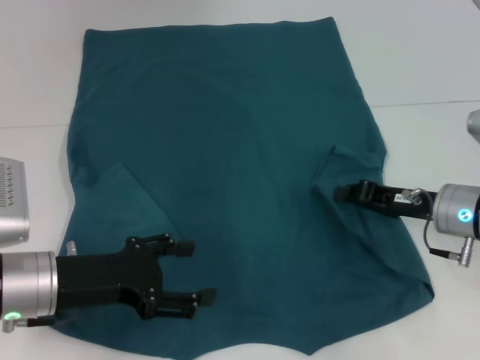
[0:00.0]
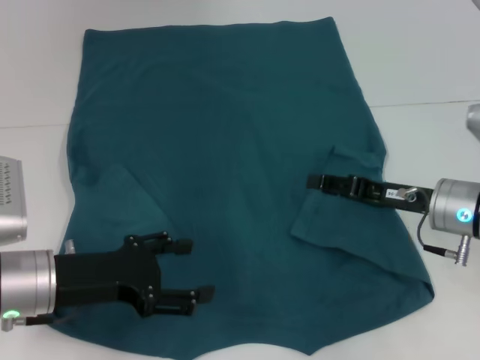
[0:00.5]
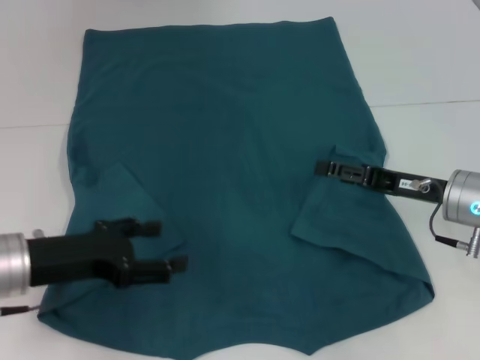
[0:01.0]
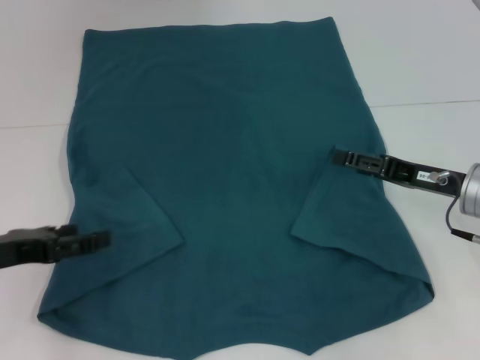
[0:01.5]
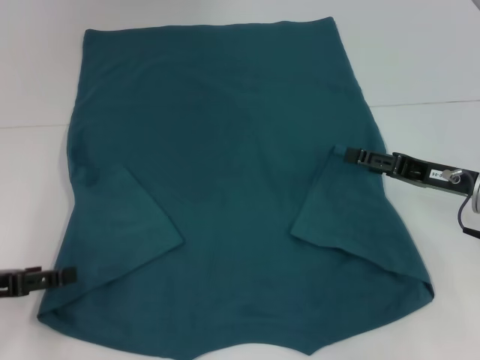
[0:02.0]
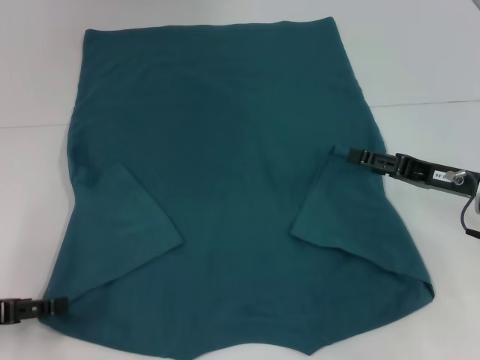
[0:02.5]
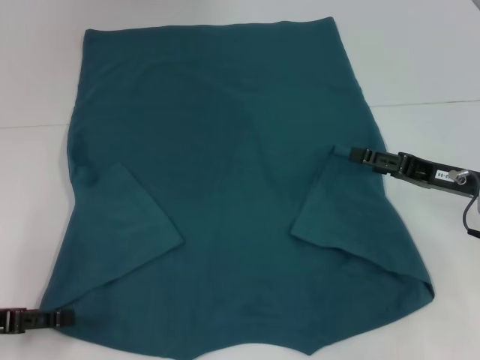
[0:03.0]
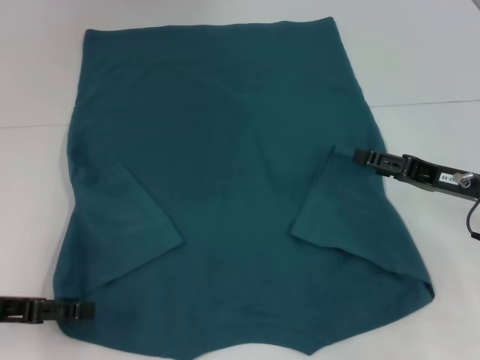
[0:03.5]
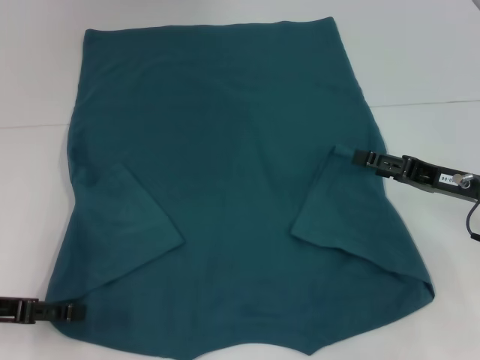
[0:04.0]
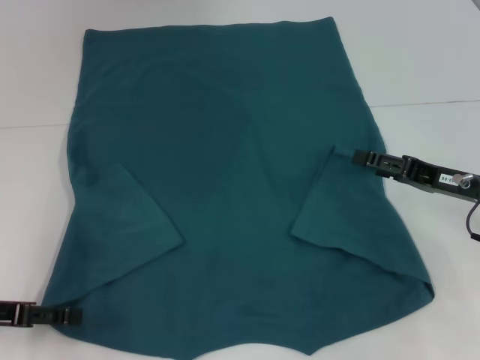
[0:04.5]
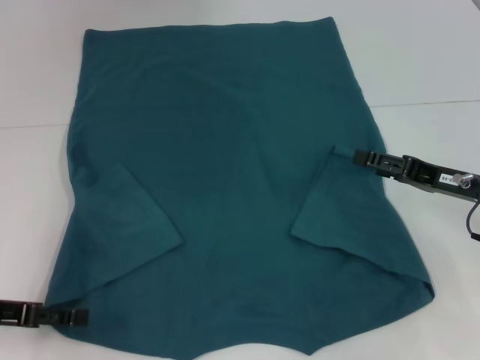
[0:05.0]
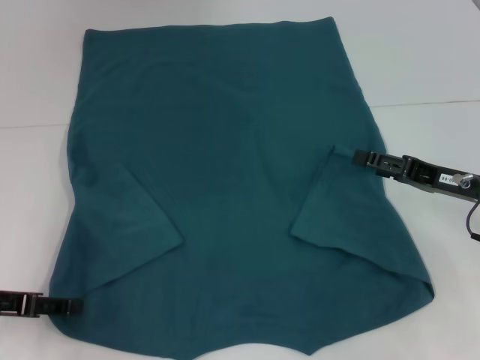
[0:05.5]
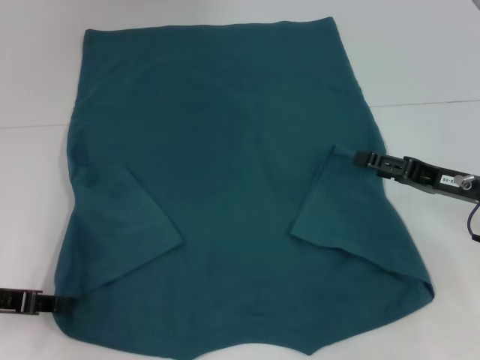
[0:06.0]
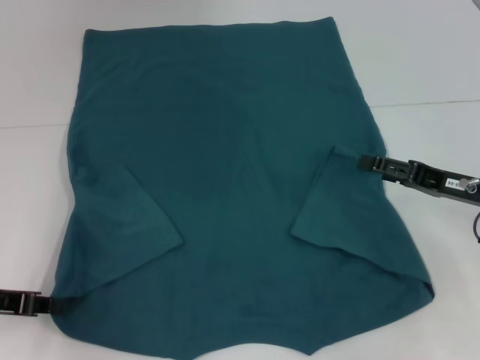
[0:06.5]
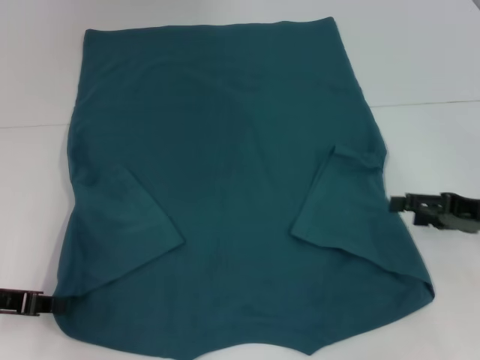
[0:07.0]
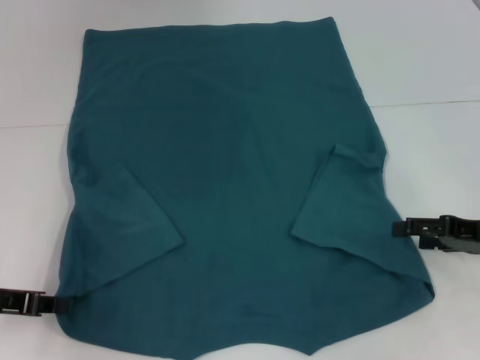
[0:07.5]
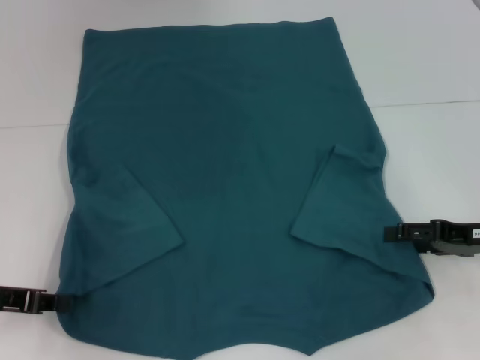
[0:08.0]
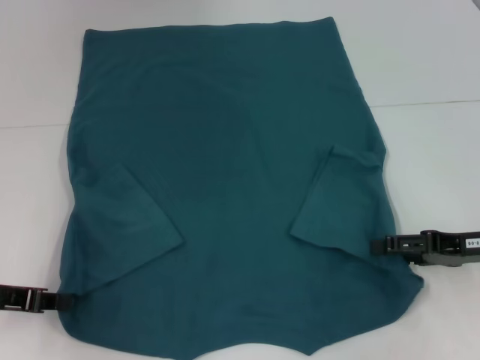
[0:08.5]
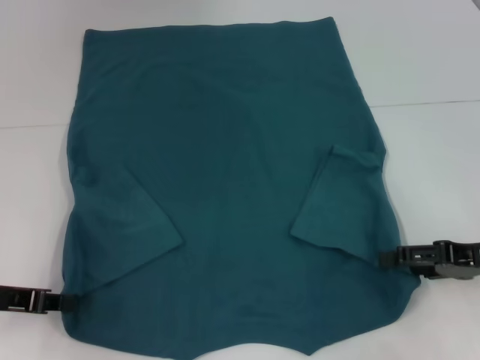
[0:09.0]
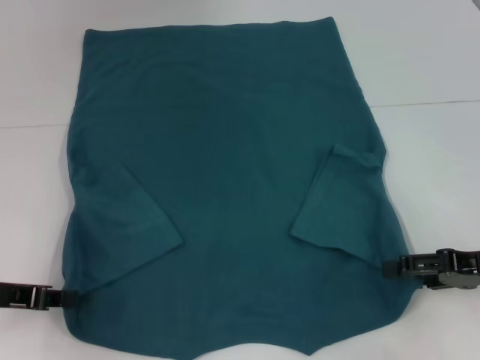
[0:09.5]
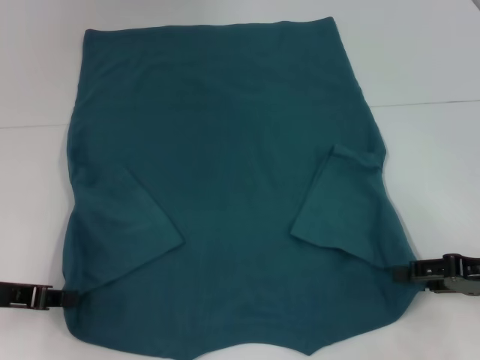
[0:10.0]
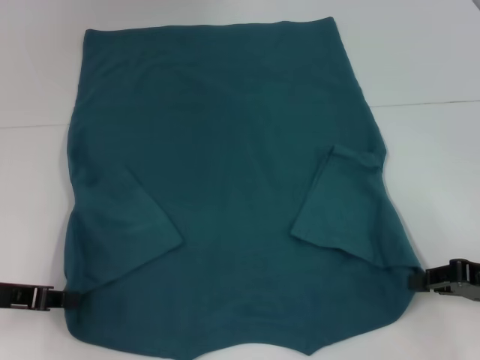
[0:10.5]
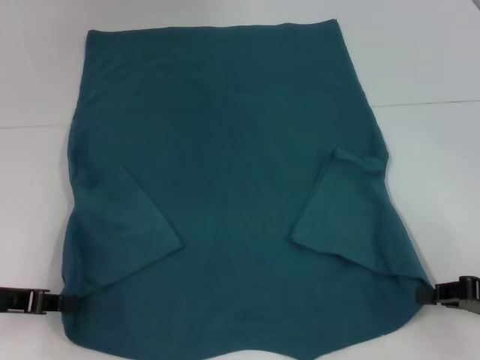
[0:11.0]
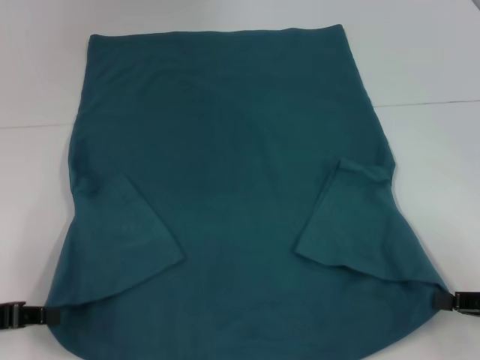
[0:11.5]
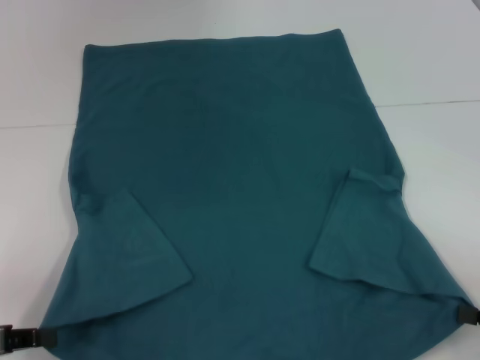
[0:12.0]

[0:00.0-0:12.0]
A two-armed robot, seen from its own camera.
Step, 0:00.5 to 0:06.0: Grab the bottom left corner with your left hand.
Step, 0:06.5 to 0:10.5: Grab the bottom right corner with your right hand.
0:00.0 to 0:02.0: The right gripper opens. The left gripper is displaced to the left by about 10 cm.
0:02.0 to 0:04.0: There are only small adjustments of the grippers.
0:04.0 to 0:06.0: The left gripper closes up.
0:06.0 to 0:08.0: The left gripper closes its fingers.
0:08.0 to 0:10.0: There are only small adjustments of the grippers.
0:10.0 to 0:12.0: The grippers both shift backward by approximately 10 cm. The right gripper closes.

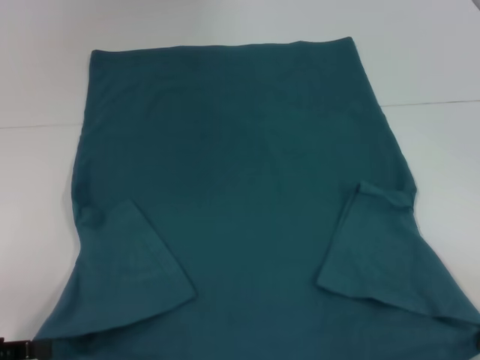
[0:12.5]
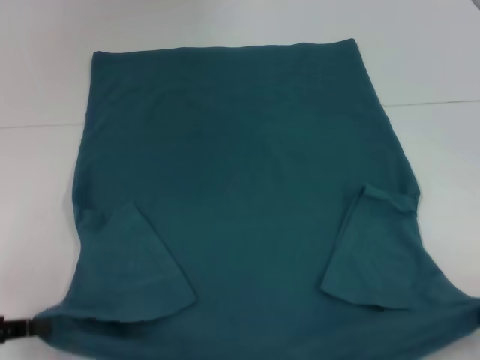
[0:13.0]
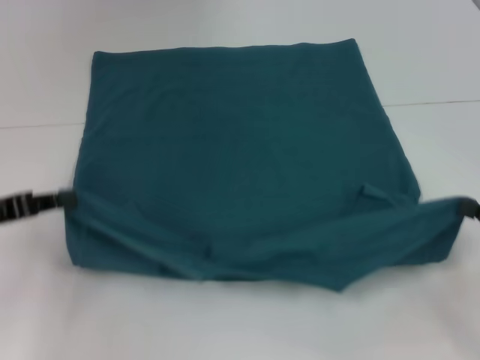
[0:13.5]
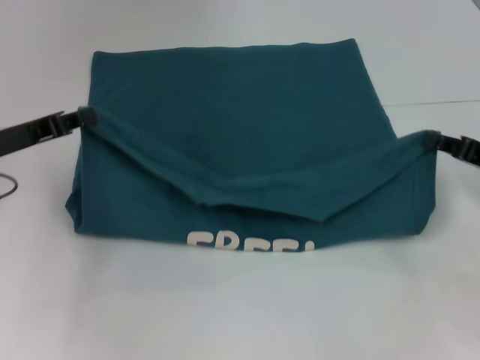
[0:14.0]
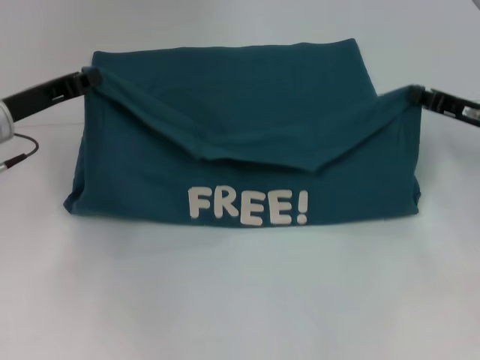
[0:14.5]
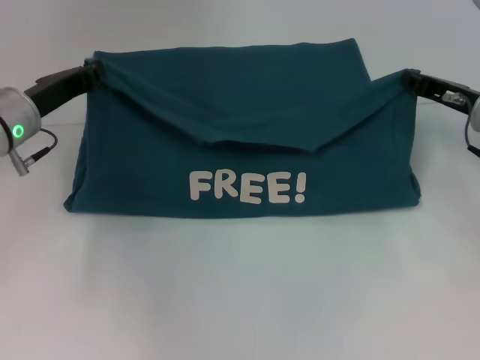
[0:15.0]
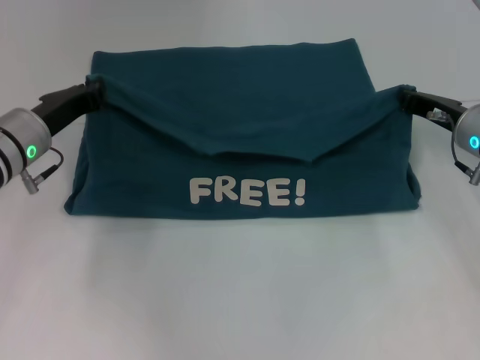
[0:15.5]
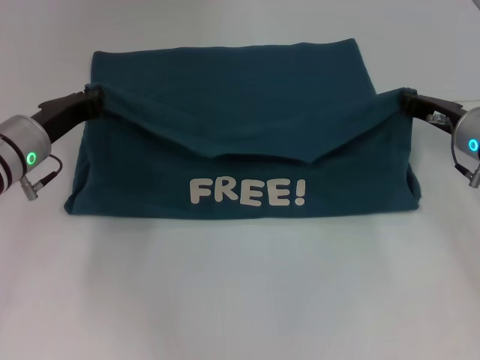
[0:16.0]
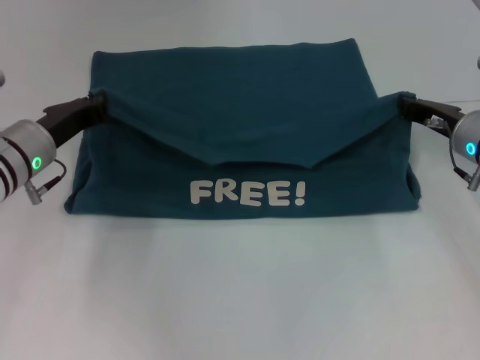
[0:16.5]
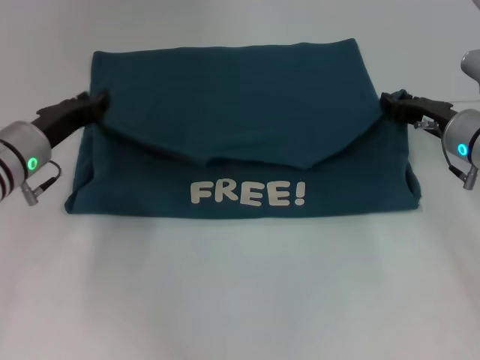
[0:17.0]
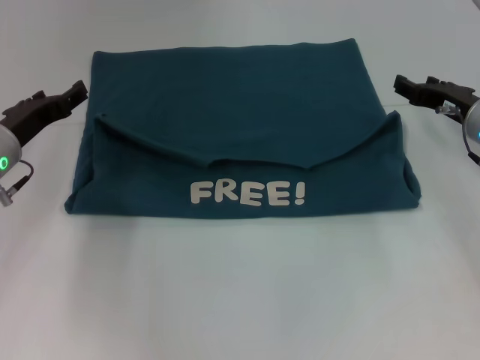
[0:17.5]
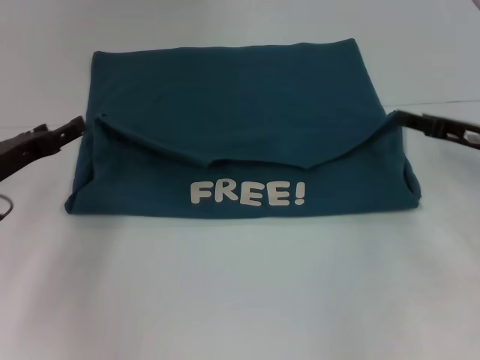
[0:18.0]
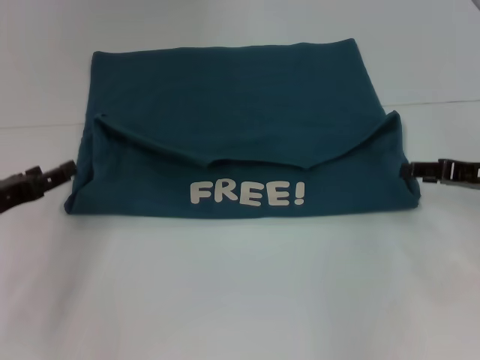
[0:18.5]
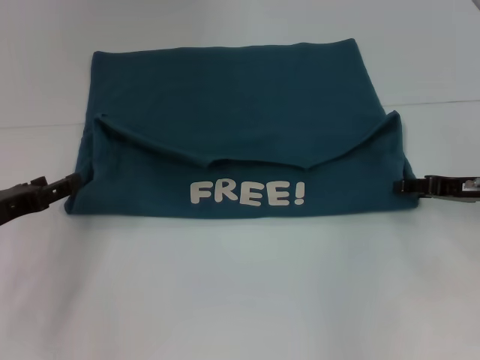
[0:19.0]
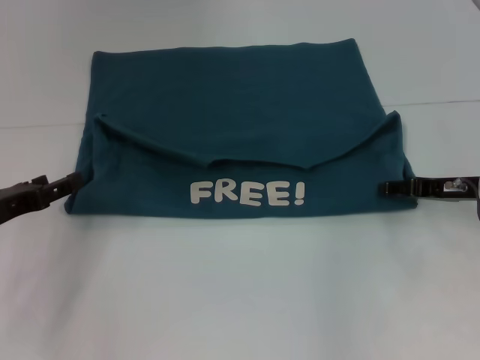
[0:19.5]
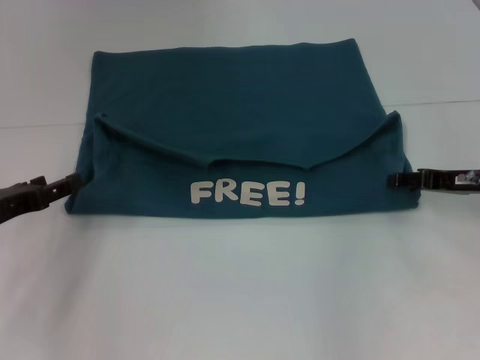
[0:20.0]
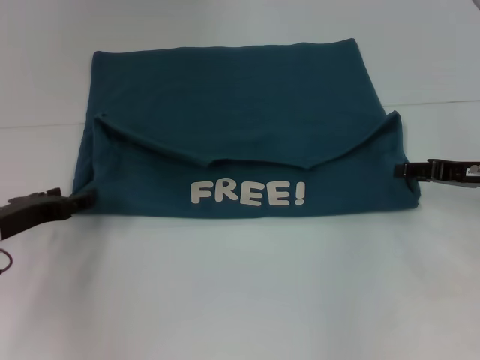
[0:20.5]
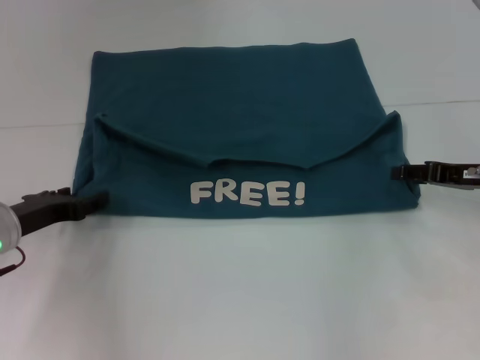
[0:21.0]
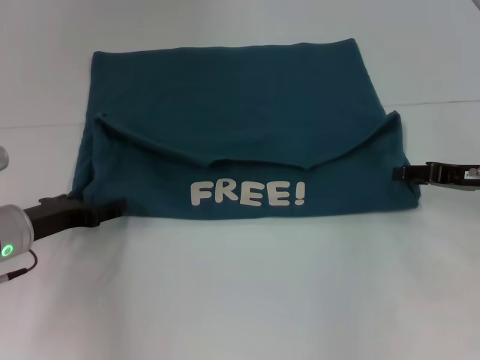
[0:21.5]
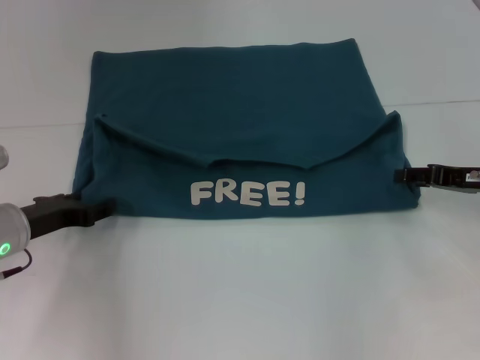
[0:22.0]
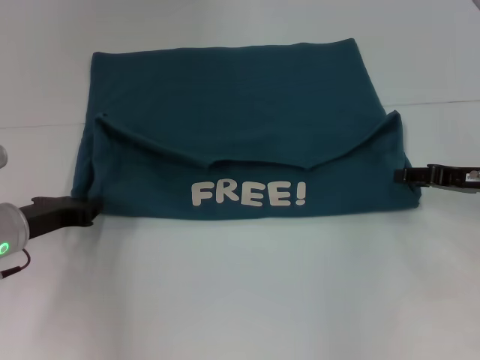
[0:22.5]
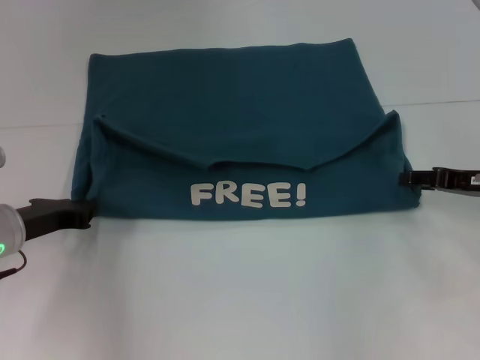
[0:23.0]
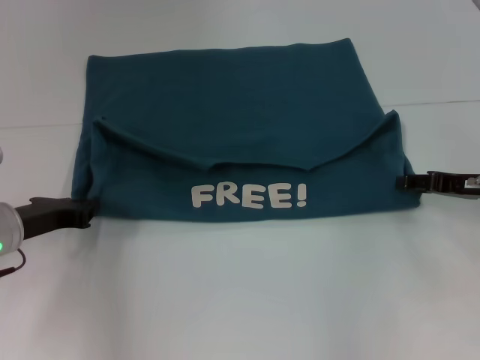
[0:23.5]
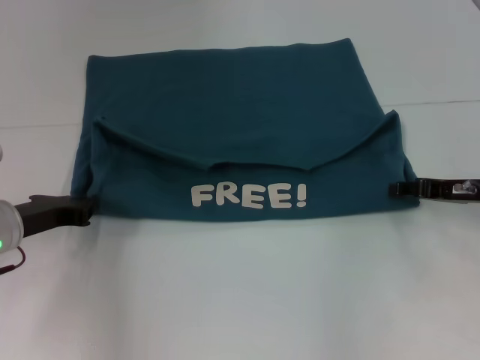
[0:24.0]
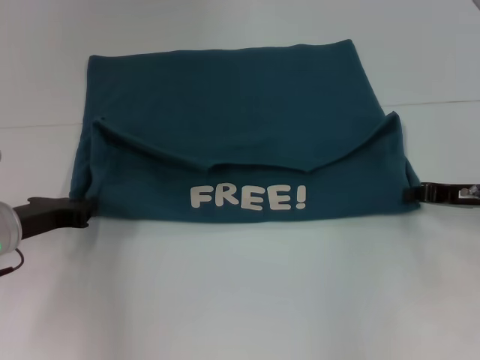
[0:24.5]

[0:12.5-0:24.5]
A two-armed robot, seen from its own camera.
Step, 0:12.5 to 0:16.5: Fold the clothes to the left.
0:12.5 to 0:14.5: The left gripper moves forward and to the right, approximately 20 cm, while the right gripper goes about 25 cm forward.
0:14.5 to 0:16.5: The left gripper changes place by roughly 5 cm. Meanwhile the right gripper ends up roughly 5 cm from where it was.
0:16.5 to 0:18.5: The left gripper heads backward and to the left, covering about 10 cm, and opens; the right gripper is displaced to the right and backward by about 10 cm, and opens.
0:18.5 to 0:20.5: The grippers move only a little.
0:20.5 to 0:22.5: The left gripper closes.
0:22.5 to 0:24.5: The right gripper closes its fingers.

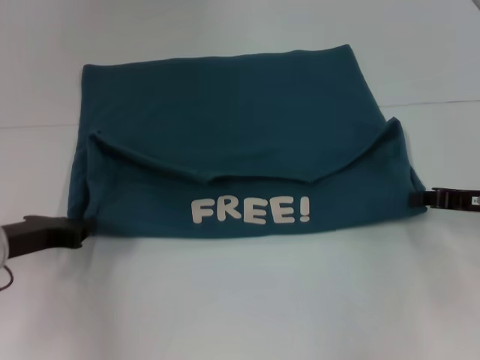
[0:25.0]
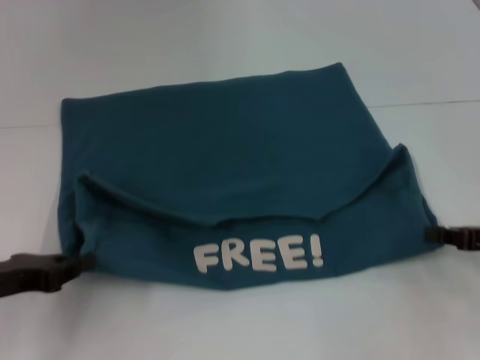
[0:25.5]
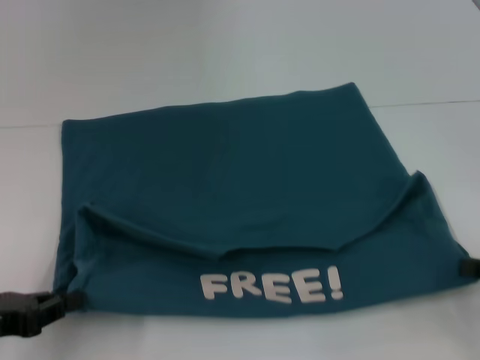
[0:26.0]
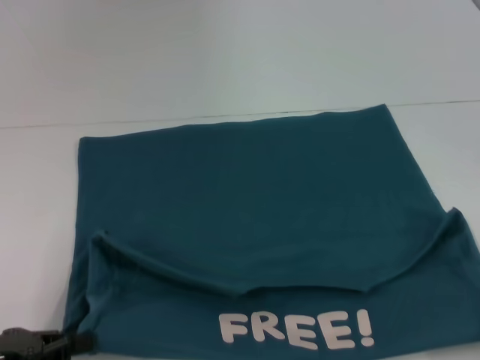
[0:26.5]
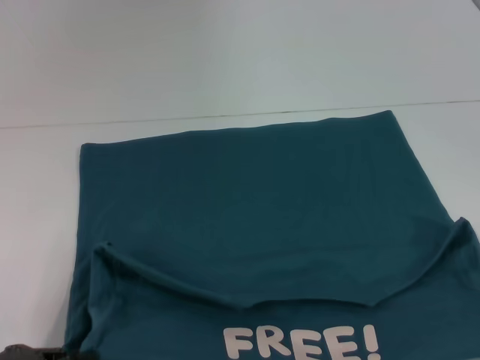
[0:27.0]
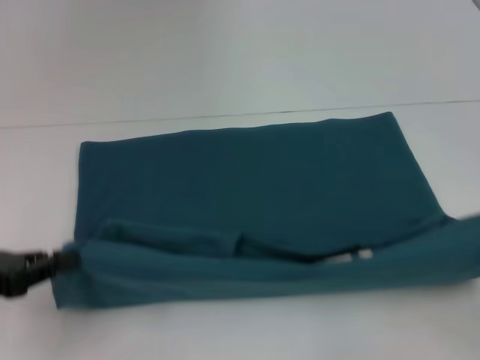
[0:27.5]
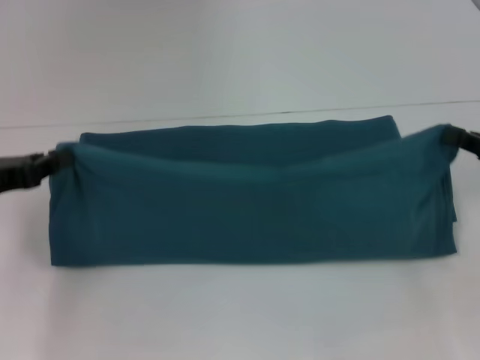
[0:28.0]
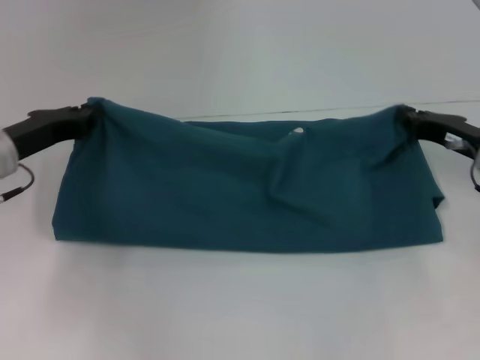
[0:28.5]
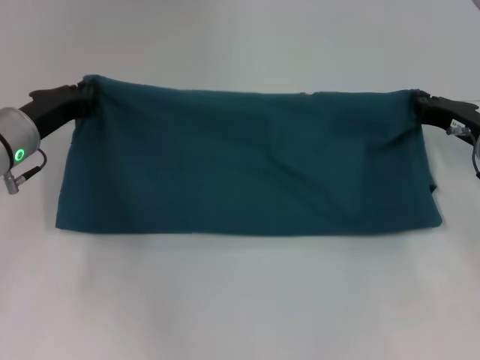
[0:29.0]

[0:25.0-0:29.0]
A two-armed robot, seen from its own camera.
Step, 0:25.0 to 0:27.0: Pull the clothes with your left hand.
Step, 0:25.0 to 0:27.0: Pull the clothes with your right hand.
0:25.0 to 0:27.0: The right gripper goes some 20 cm backward. The left gripper shifts approximately 15 cm backward.
0:27.0 to 0:29.0: The left gripper travels forward by some 20 cm. Meanwhile the right gripper heads forward and to the left, covering about 25 cm.
